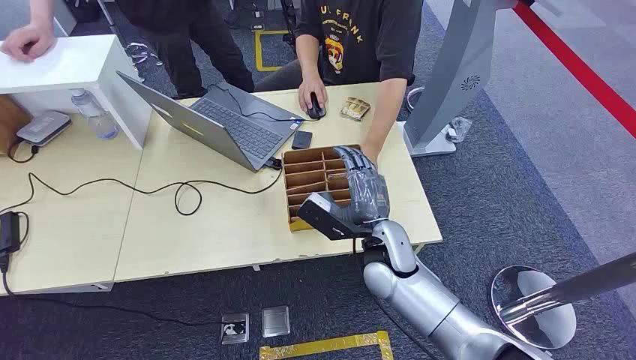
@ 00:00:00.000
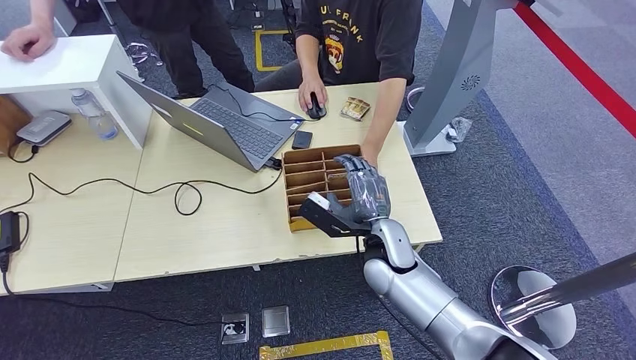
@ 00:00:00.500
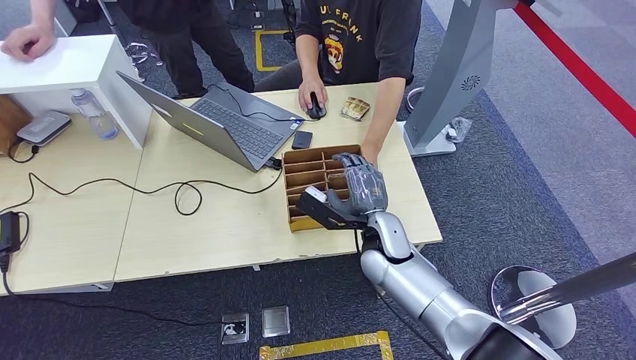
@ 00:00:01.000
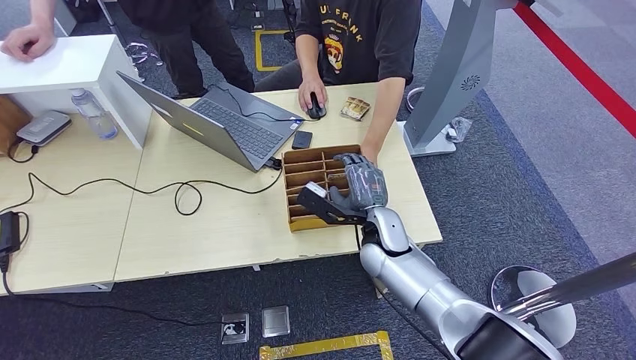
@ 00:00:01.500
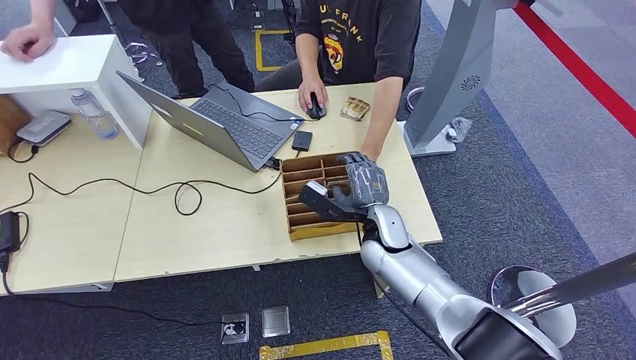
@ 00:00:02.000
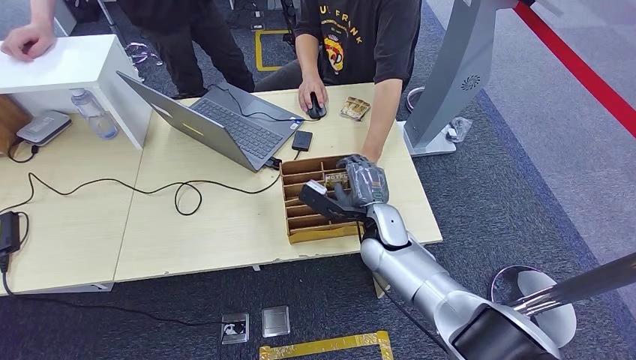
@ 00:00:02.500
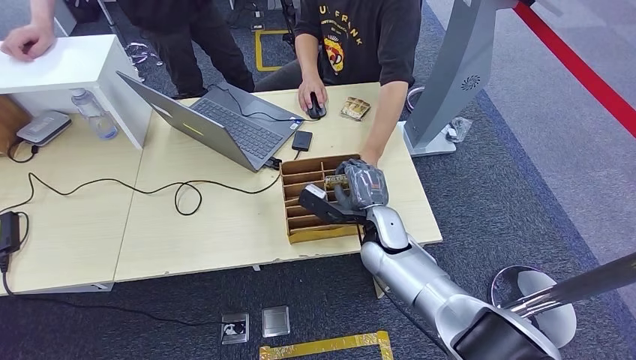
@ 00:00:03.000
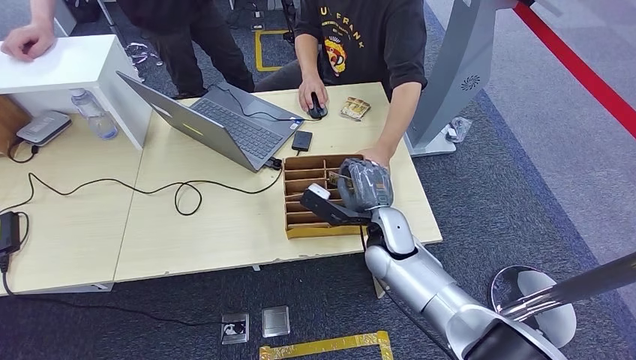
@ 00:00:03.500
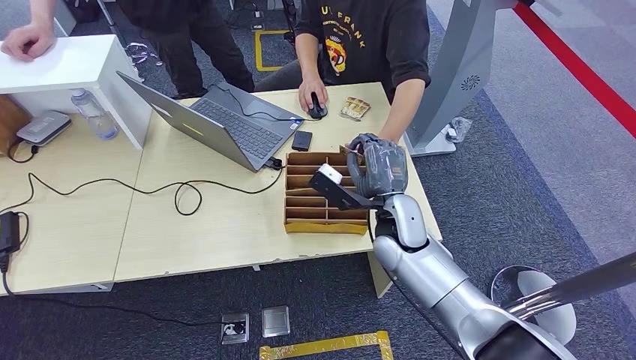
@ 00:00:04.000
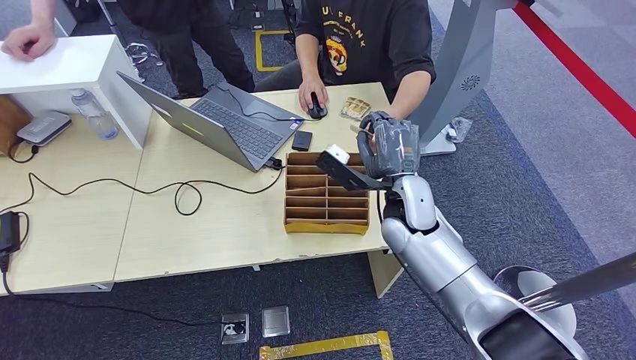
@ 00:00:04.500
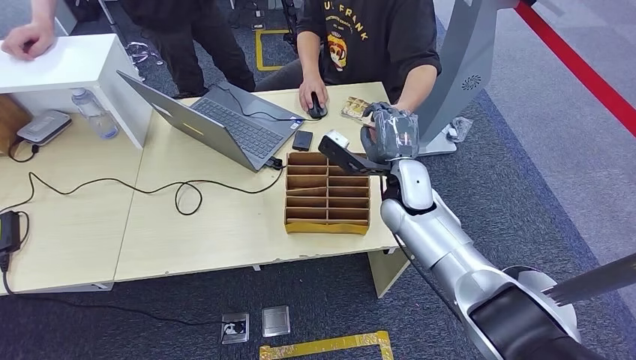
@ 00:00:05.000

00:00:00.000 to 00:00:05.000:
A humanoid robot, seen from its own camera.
Step, 00:00:00.000 to 00:00:03.000: Pick up the room card from the card holder.
Step, 00:00:03.500 to 00:00:05.000: Hand the room card to the target.
00:00:02.500 to 00:00:05.000: The right hand is displaced upward by some 10 cm.
